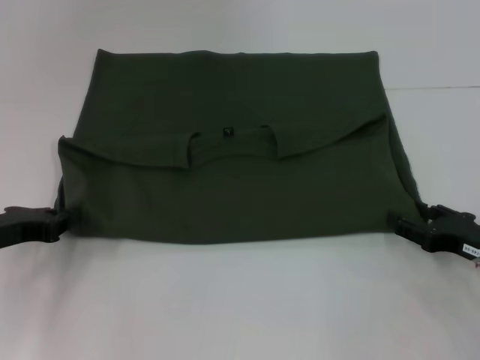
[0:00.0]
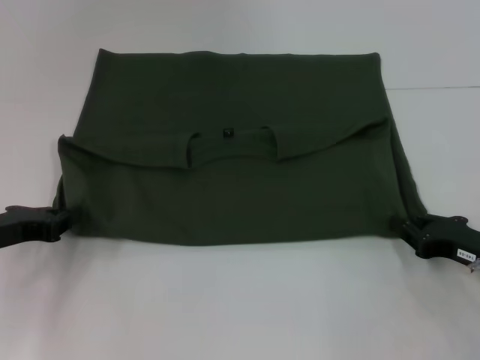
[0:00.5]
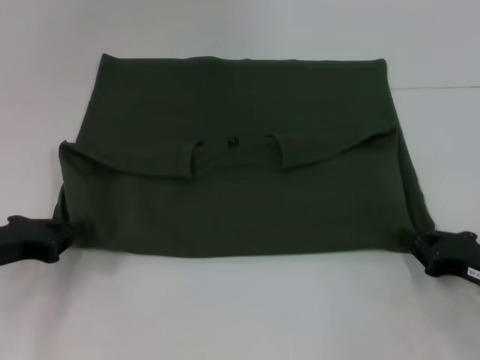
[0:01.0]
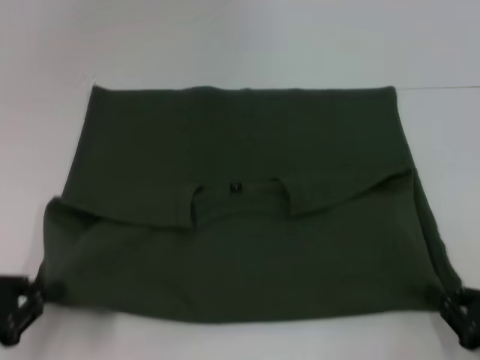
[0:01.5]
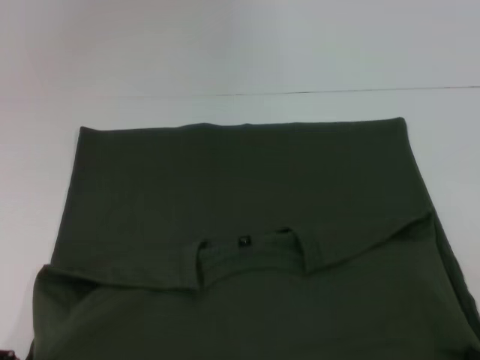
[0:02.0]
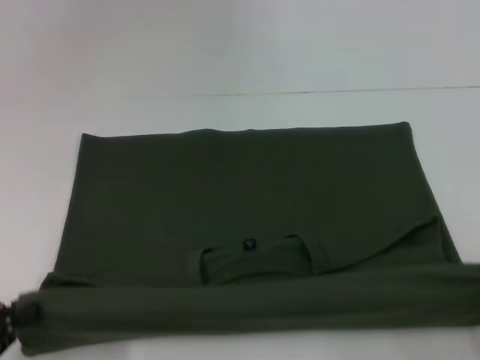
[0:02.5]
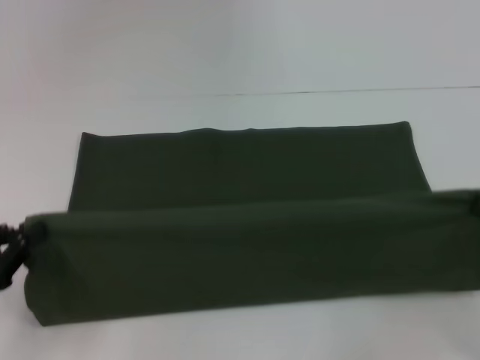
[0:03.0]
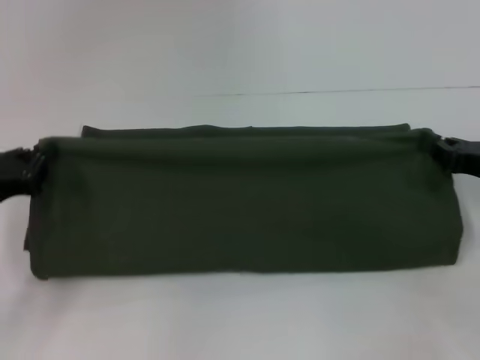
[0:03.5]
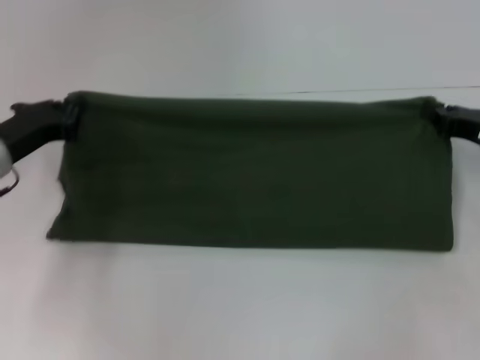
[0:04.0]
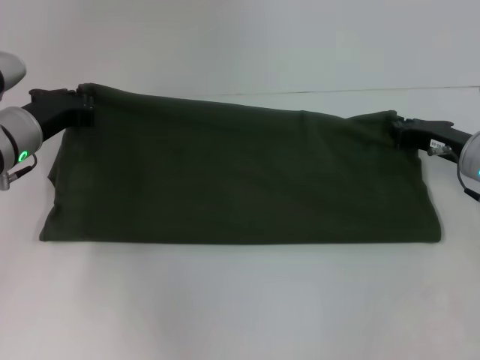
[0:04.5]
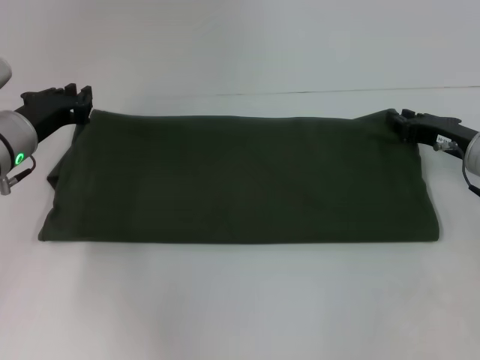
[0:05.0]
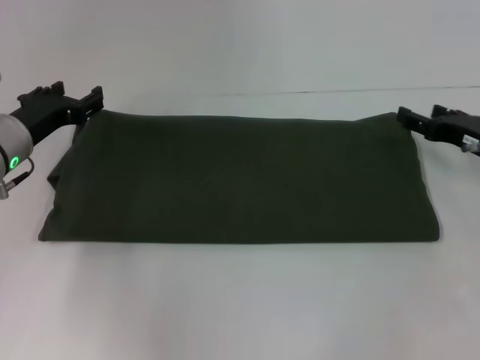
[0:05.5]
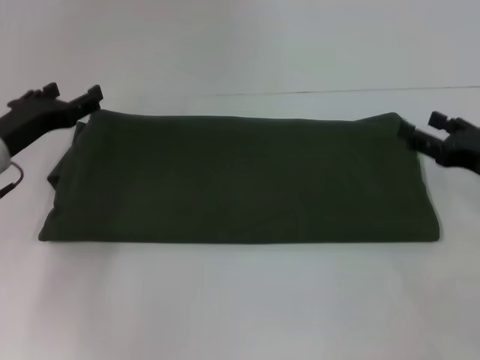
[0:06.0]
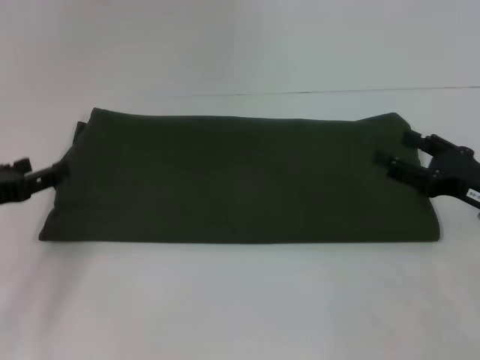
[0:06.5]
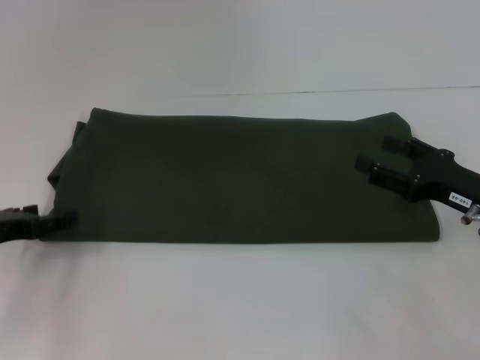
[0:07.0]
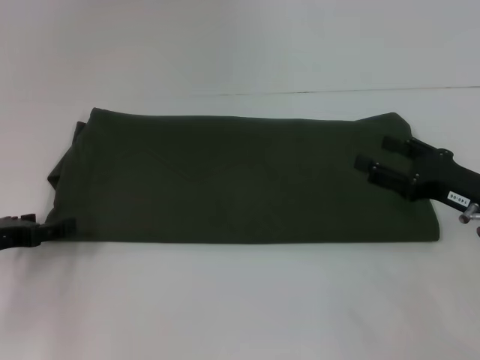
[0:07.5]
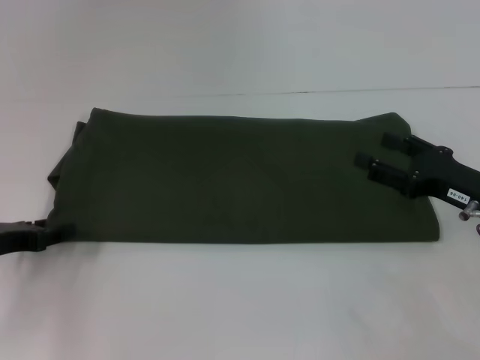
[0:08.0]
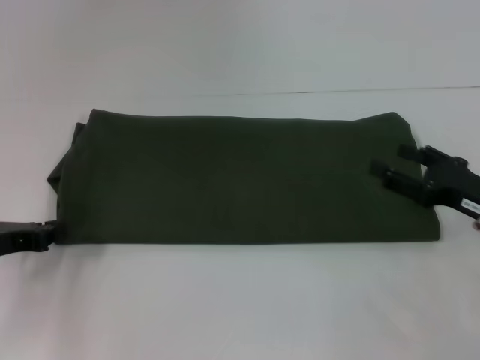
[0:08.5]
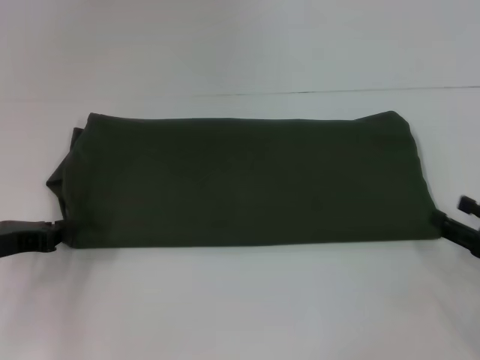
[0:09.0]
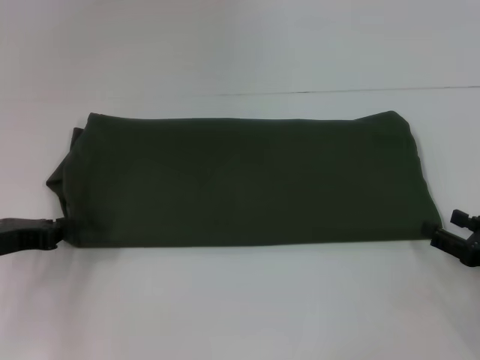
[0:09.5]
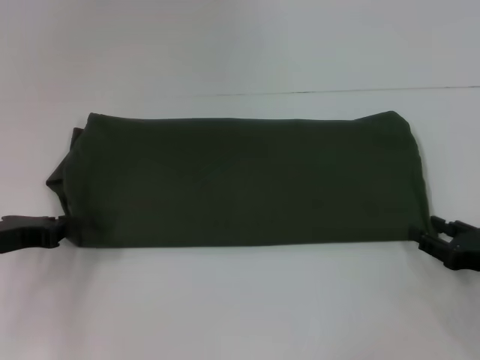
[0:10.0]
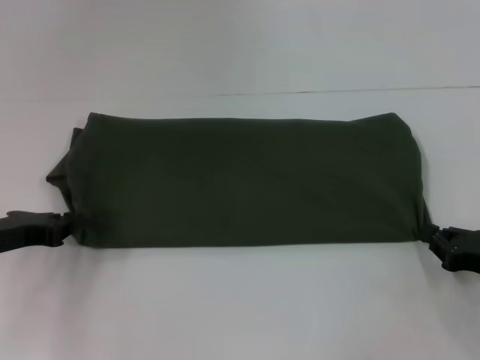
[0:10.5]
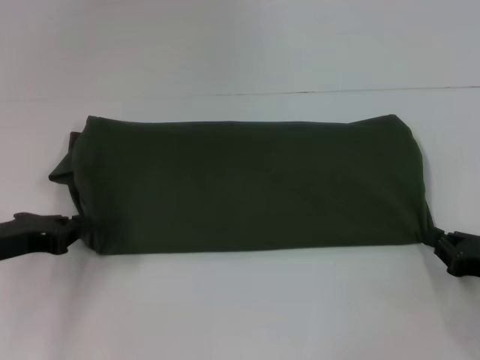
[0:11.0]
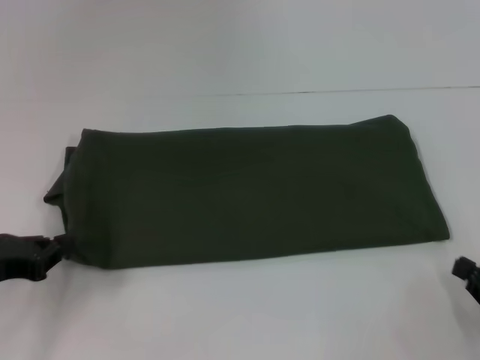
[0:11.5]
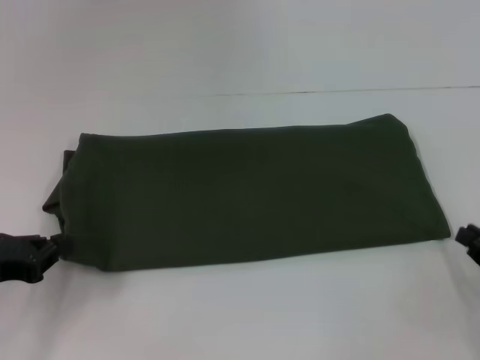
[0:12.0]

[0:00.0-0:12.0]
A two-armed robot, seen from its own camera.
Step, 0:00.0 to 0:02.0: Pull the clothes with your left hand.
Step, 0:00.0 to 0:02.0: Pull the clothes with your right hand.
Step, 0:02.5 to 0:05.5: Fold the clothes with your right hand.
0:00.0 to 0:02.0: Both grippers move backward, some 20 cm. The right gripper closes up.
0:02.0 to 0:04.0: Both grippers move forward, roughly 25 cm.
0:04.0 to 0:06.0: The right gripper opens. The left gripper opens its fingers.
0:06.0 to 0:08.0: The left gripper goes some 5 cm backward.
0:08.0 to 0:10.0: The left gripper closes its fingers. Meanwhile the right gripper travels backward and downward by roughly 5 cm.
0:10.0 to 0:12.0: The right gripper closes.

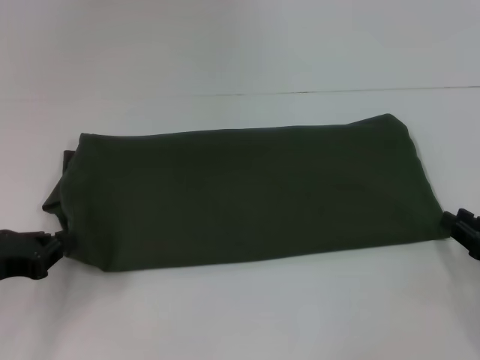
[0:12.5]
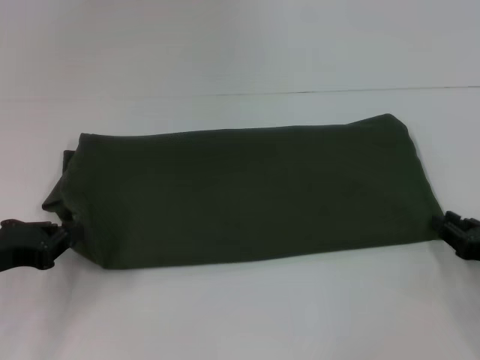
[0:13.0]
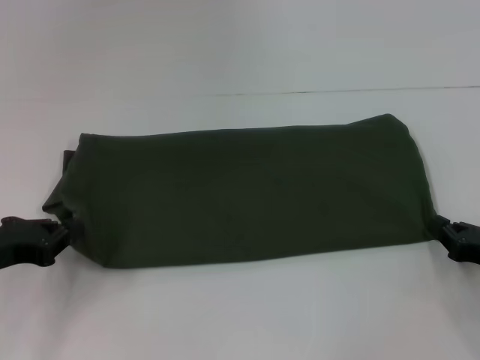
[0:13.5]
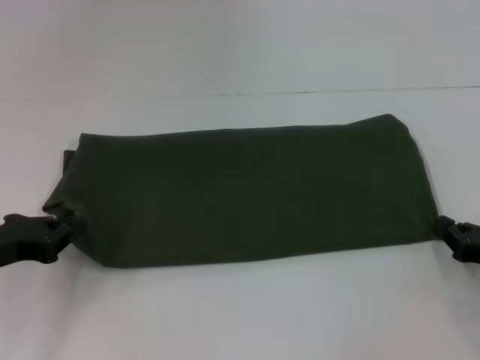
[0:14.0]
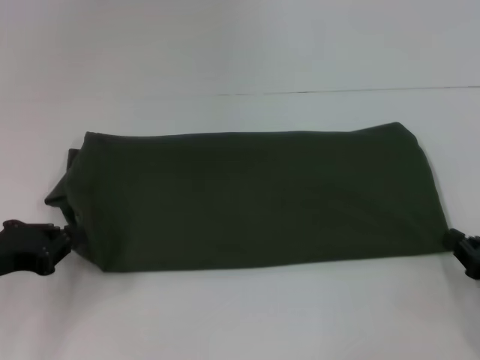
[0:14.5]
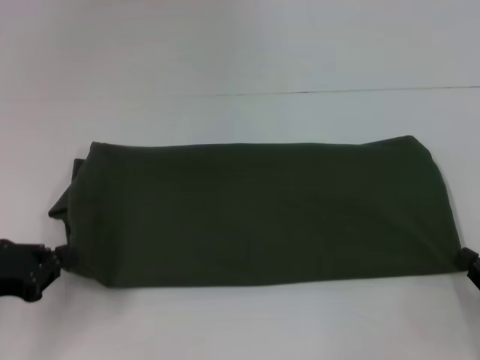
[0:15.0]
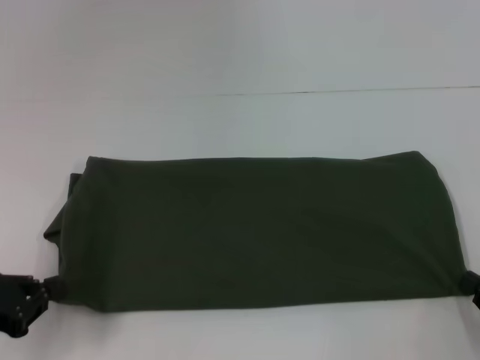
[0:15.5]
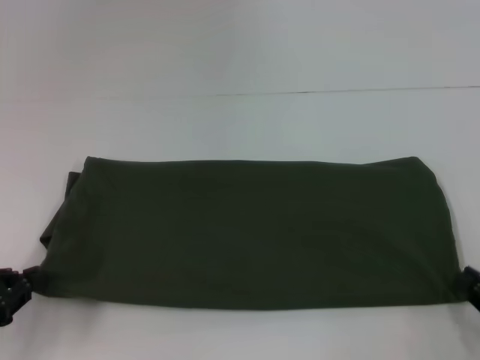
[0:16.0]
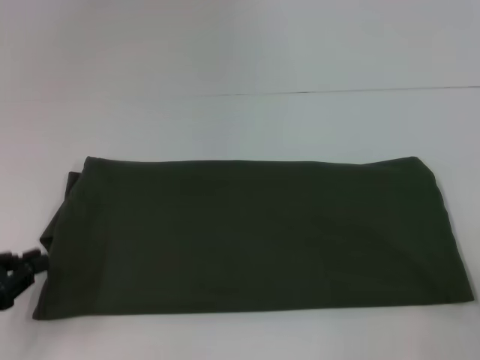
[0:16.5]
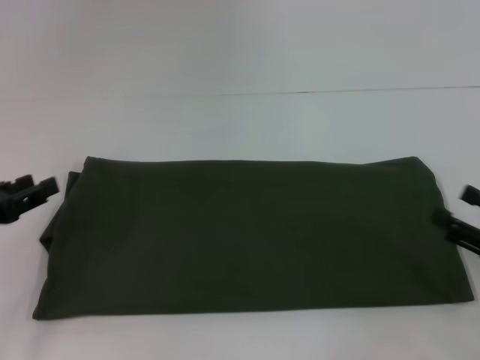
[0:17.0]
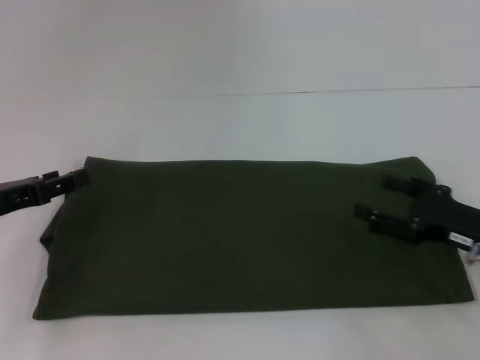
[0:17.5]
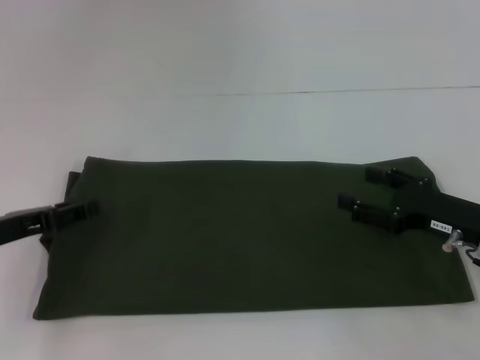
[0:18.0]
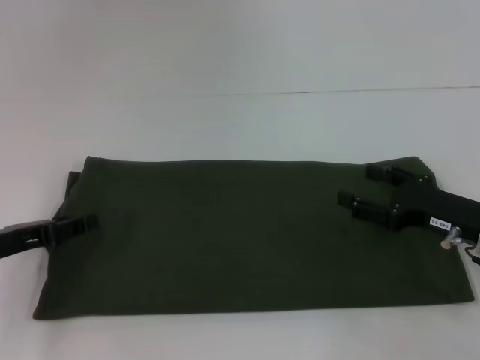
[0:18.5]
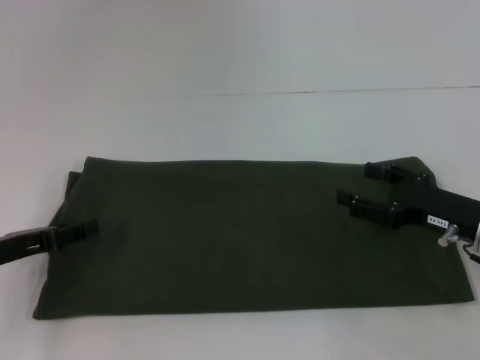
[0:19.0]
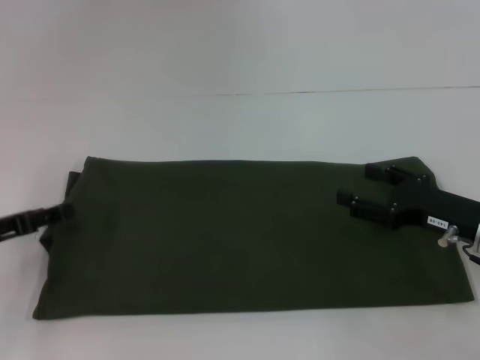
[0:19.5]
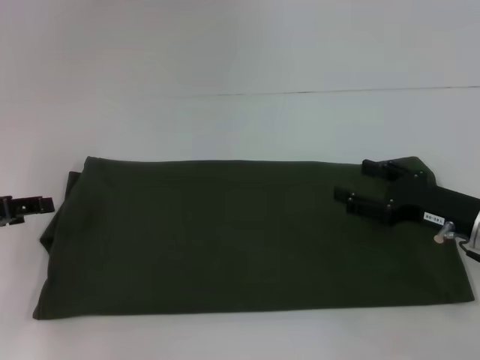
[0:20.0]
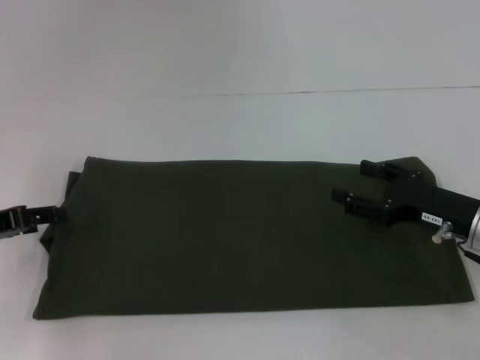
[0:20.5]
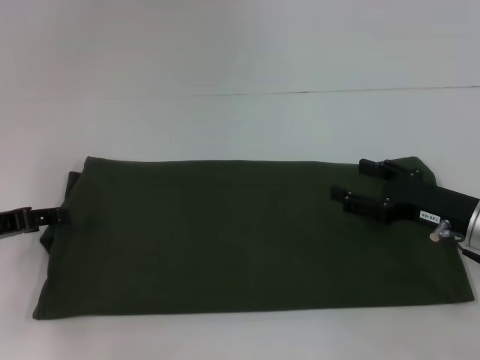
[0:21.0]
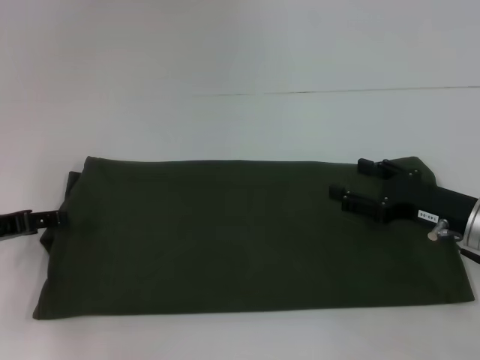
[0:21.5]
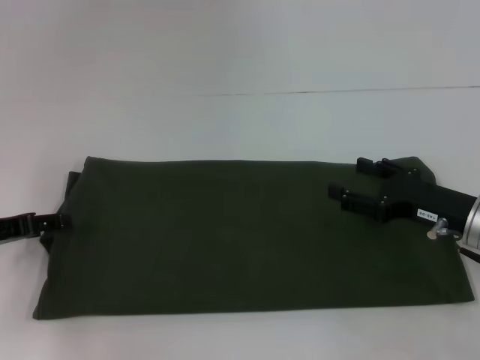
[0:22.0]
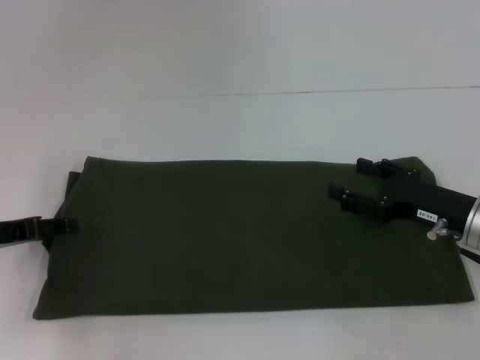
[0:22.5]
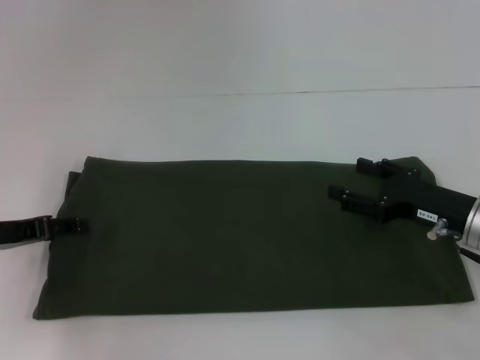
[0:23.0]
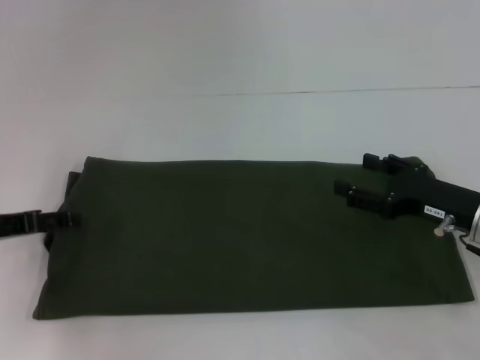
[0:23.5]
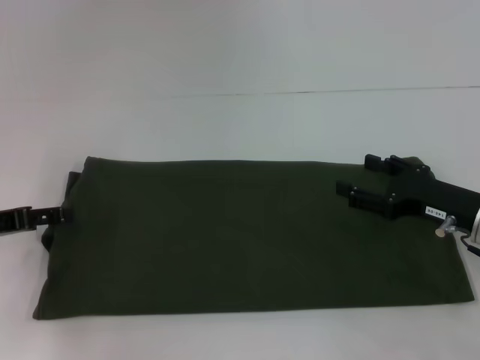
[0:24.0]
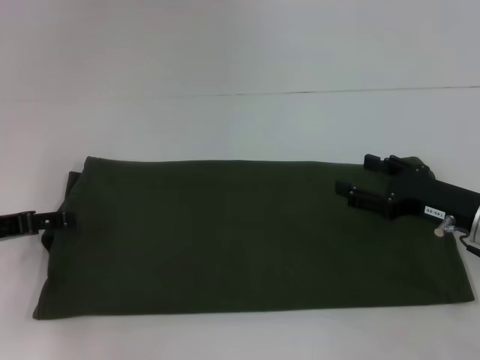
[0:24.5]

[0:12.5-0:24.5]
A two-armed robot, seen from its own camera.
0:12.5 to 0:14.5: The right gripper closes.
0:14.5 to 0:16.5: The two grippers go about 5 cm backward. The right gripper opens its fingers.
0:16.5 to 0:18.5: The right gripper heads forward and to the left, covering approximately 15 cm, and opens; the left gripper moves forward, some 5 cm, and opens its fingers.
0:18.5 to 0:24.5: There are only small adjustments of the grippers.

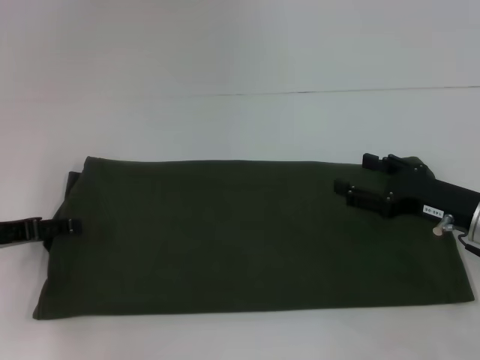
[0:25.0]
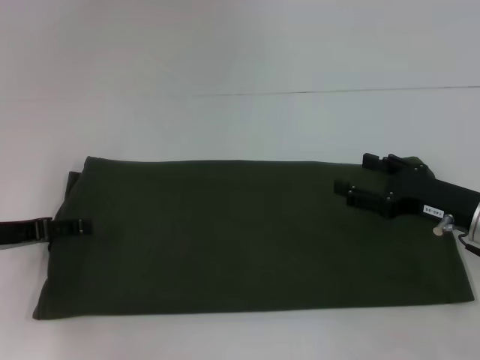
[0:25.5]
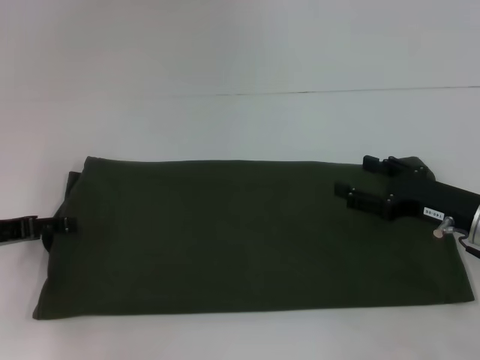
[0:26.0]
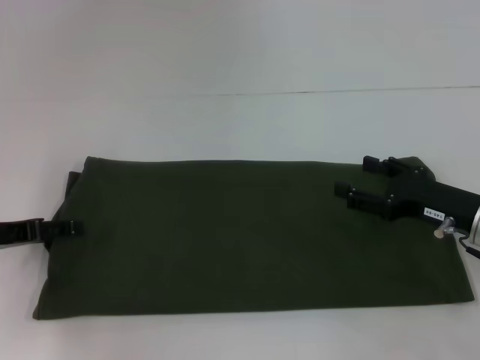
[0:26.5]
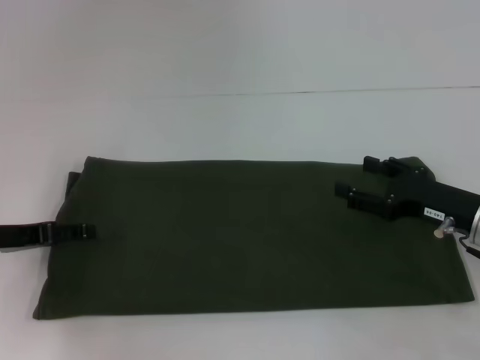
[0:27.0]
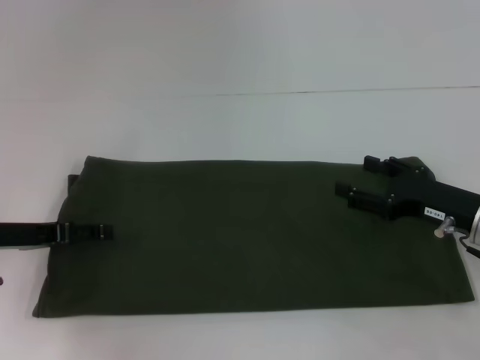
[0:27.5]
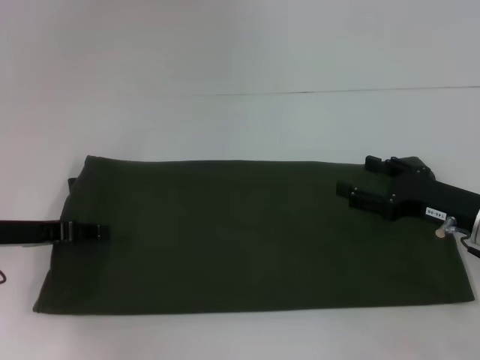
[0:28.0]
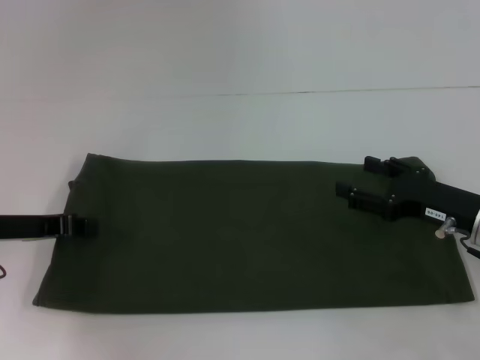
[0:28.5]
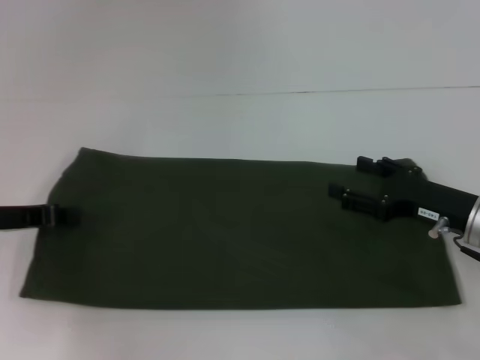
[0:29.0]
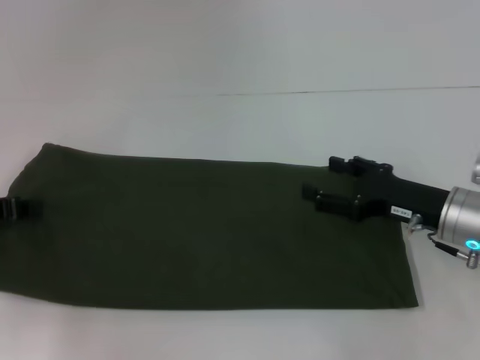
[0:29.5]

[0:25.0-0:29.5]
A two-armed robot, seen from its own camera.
0:25.0 to 0:27.0: Both grippers stay about where they are.
0:27.0 to 0:29.5: The left gripper closes.
